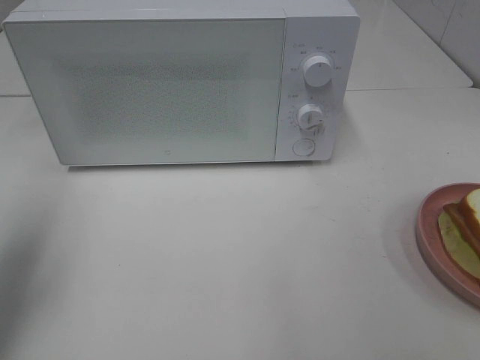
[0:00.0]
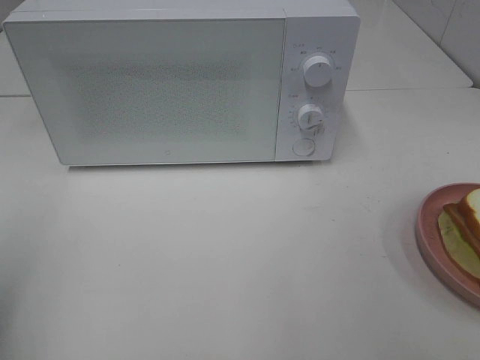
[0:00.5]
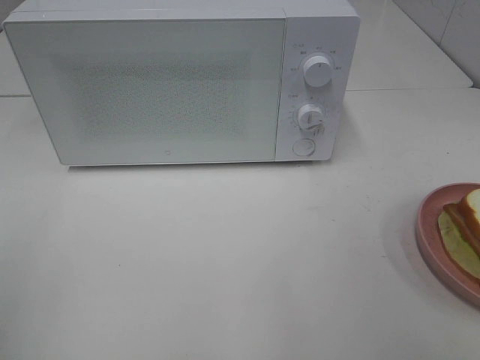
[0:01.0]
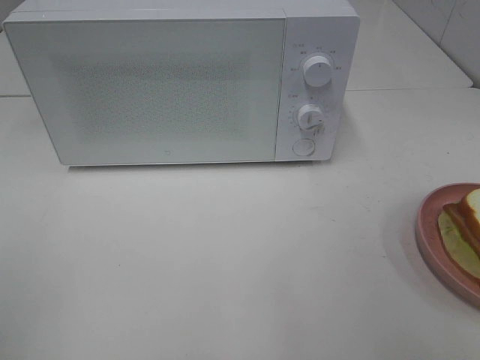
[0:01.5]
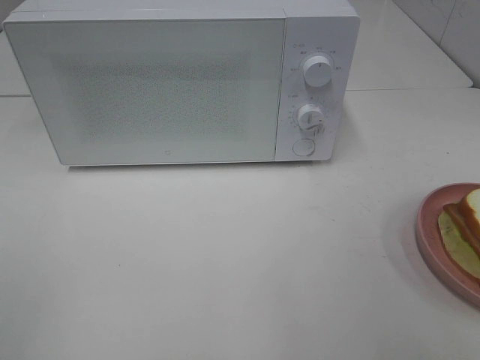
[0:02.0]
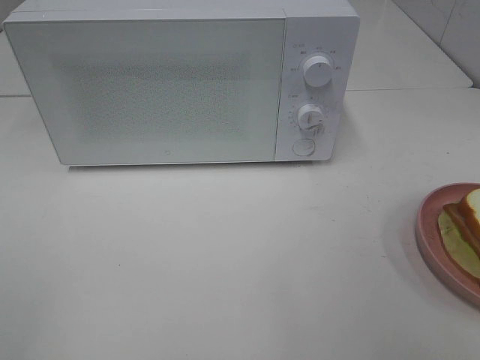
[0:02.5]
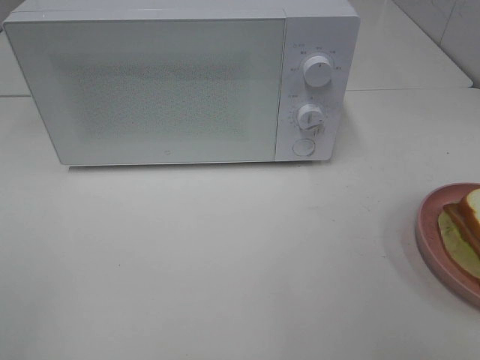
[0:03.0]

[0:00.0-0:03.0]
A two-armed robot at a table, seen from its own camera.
Task of the whole recording: Heat Sandwich.
0:00.0 to 0:01.5: The left gripper shifts some 20 cm backward.
